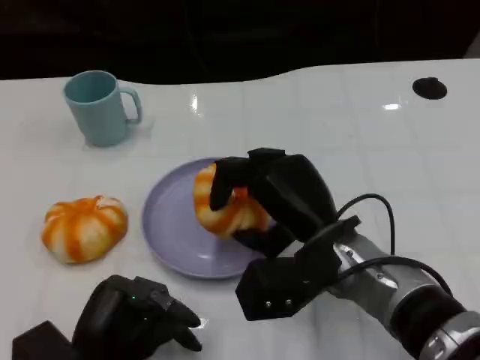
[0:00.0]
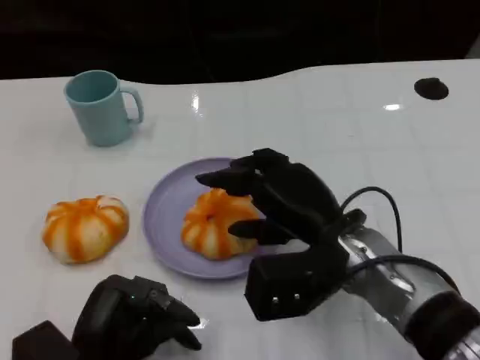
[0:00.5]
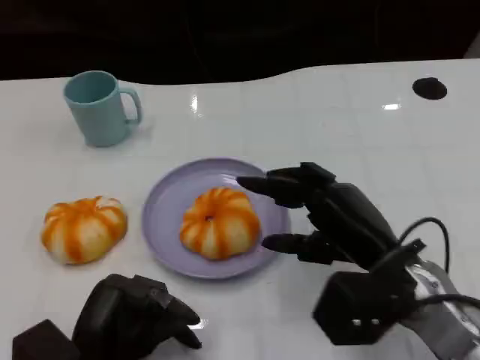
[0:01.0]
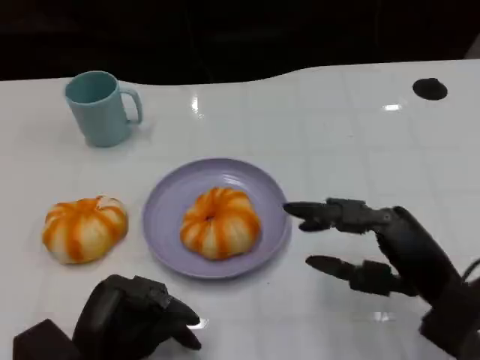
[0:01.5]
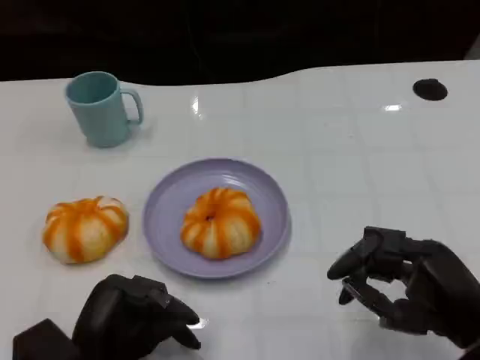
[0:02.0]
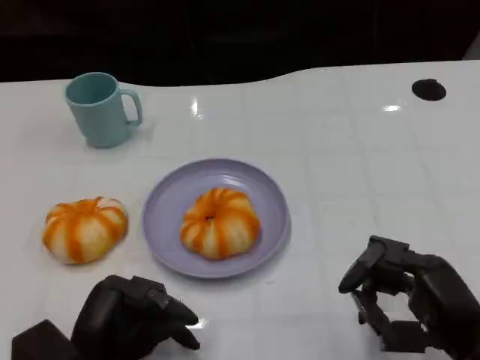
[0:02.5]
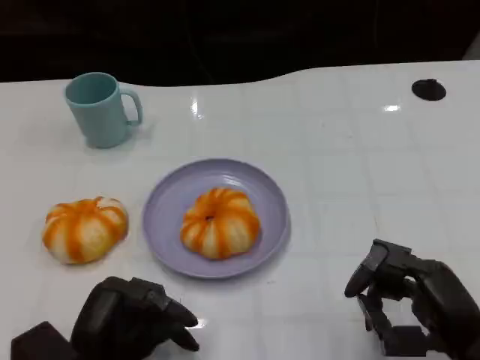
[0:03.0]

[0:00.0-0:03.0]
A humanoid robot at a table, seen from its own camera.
Task of the whole recording: Grasp the bread from the table and place it into the plate.
0:00.0 to 0:01.5: The right hand is displaced to the right and backward by roughly 15 cm.
0:01.5 to 0:03.0: The right hand ends up about 5 cm from where it was.
